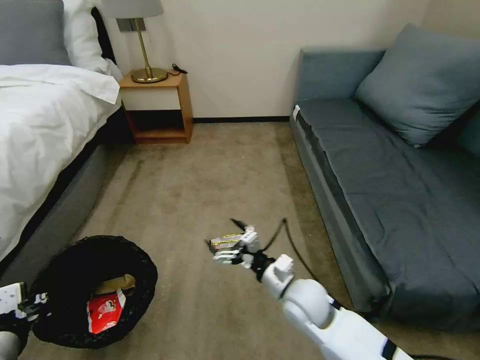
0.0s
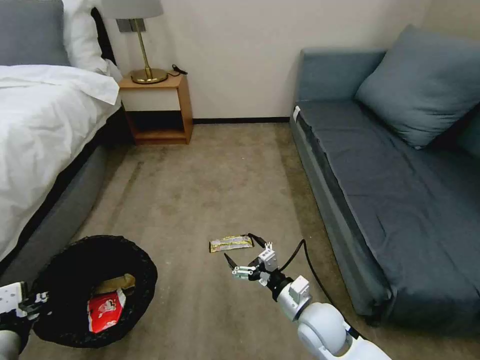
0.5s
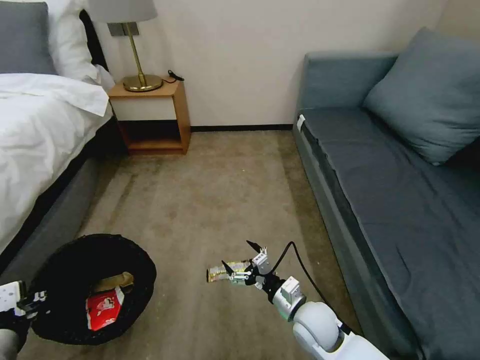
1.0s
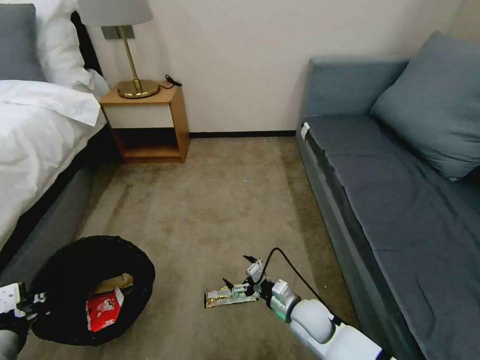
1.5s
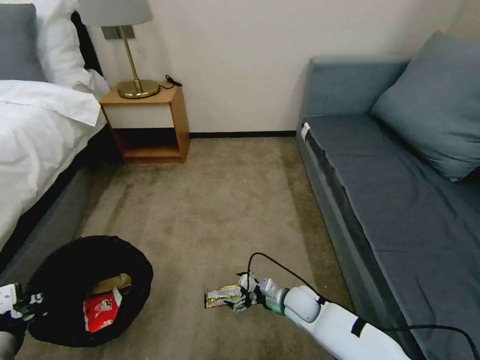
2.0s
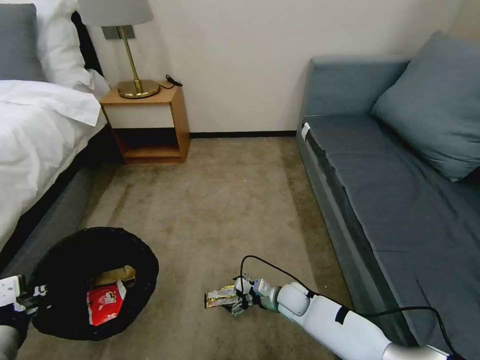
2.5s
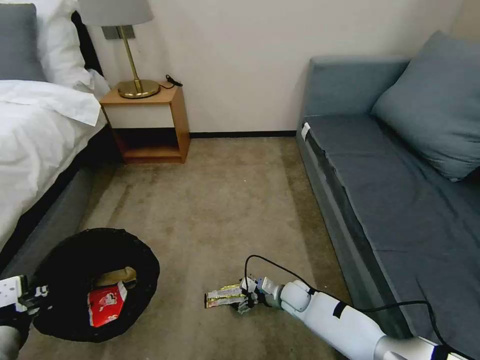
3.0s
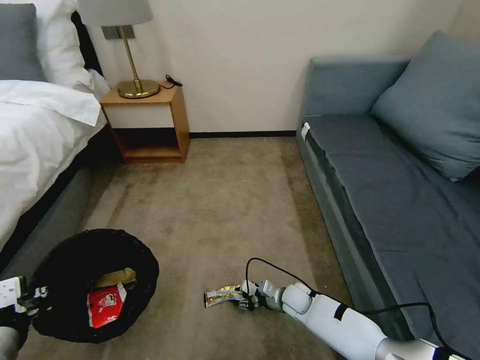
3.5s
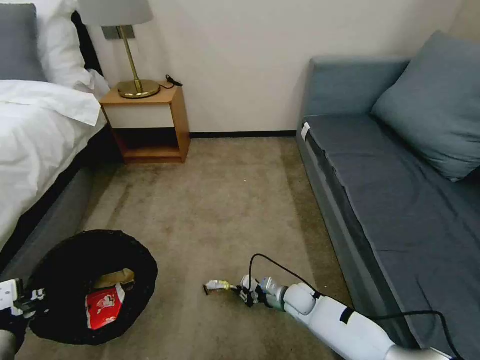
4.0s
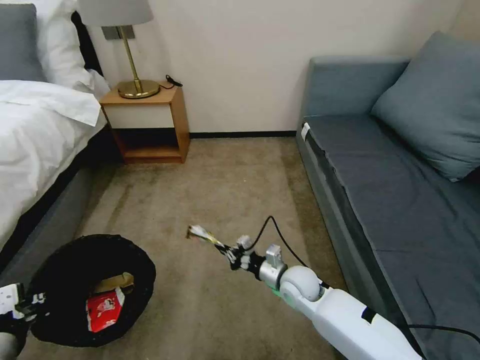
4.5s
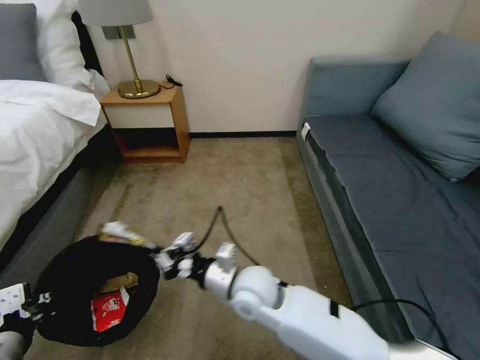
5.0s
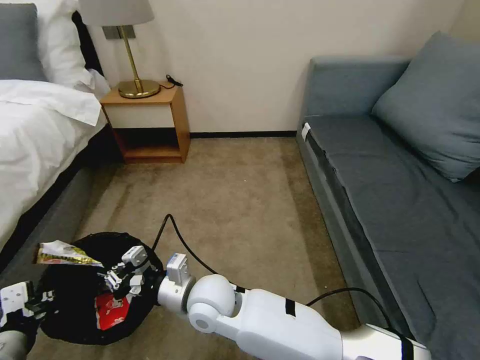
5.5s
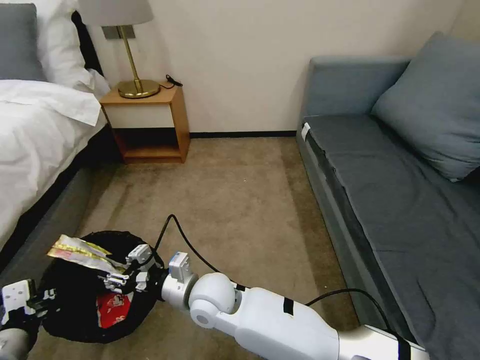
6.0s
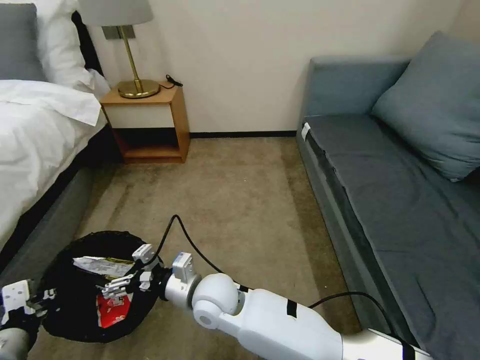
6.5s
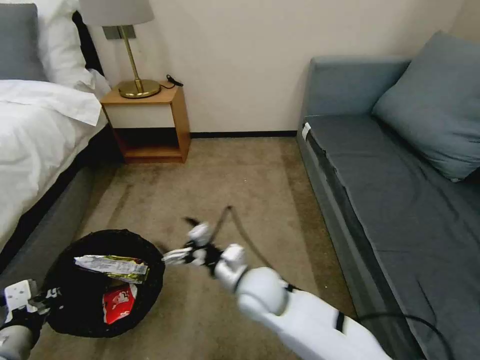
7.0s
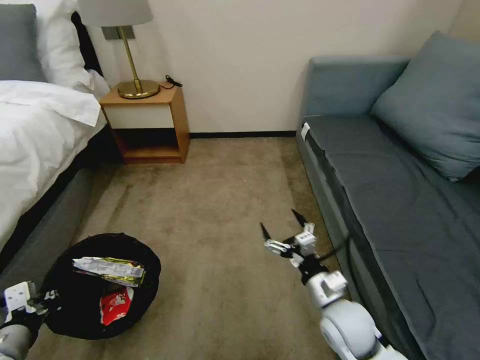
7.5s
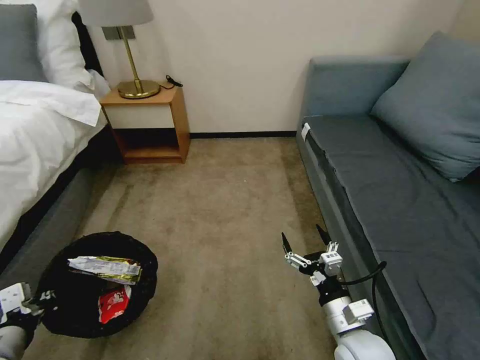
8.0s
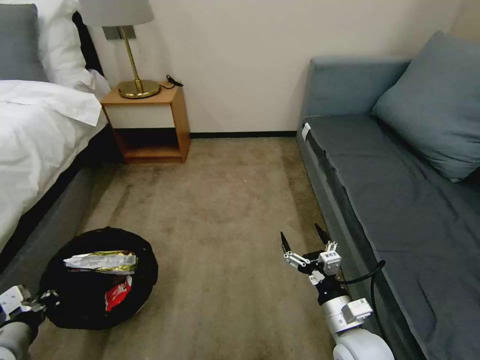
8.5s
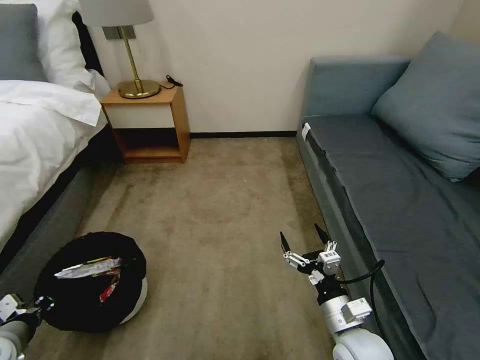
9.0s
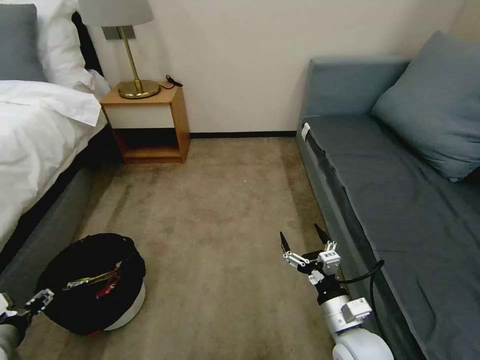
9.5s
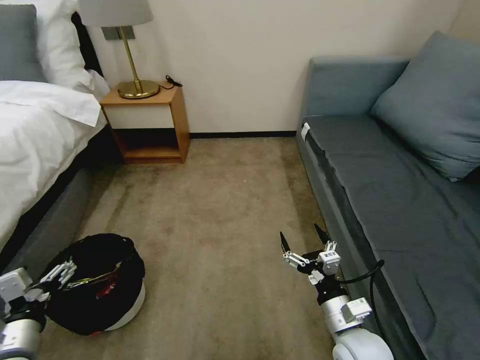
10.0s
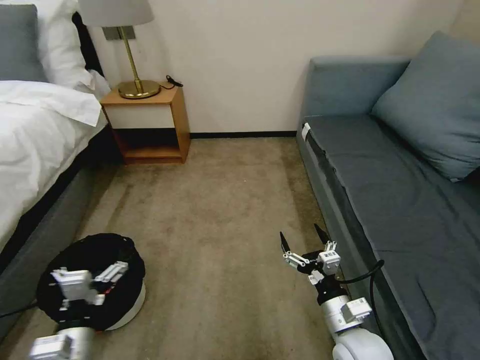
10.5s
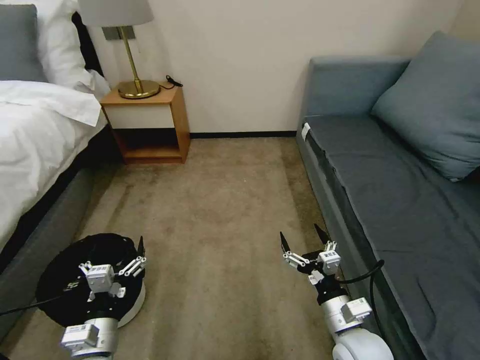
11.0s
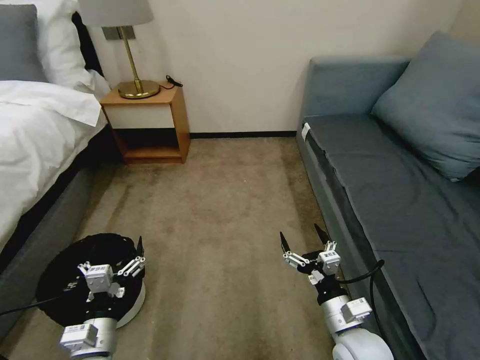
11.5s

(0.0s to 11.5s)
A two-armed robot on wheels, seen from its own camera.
Task of the whole recording: Pick up the trash bin, then pick up the garbage on the floor and place it into the trash bin.
0.0s - 2.0s: The right gripper heads downward, covering approximately 15 cm.
2.0s - 4.0s: The right gripper shifts by about 5 cm, and closes.
4.0s - 6.0s: The right gripper goes about 35 cm to the left and upward, and opens.
6.0s - 7.5s: The right gripper shifts about 30 cm to the right, and opens its fingers.
7.5s - 9.5s: The left gripper goes roughly 5 cm to the left, and opens up. Meanwhile the right gripper ends up approximately 5 cm from where it was.
9.5s - 11.5s: The left gripper travels to the right by about 20 cm, and opens.

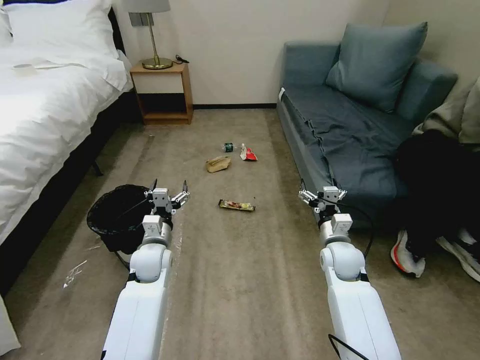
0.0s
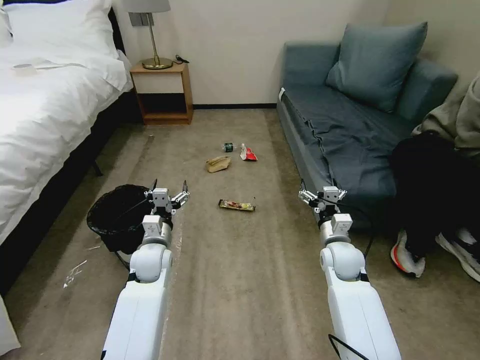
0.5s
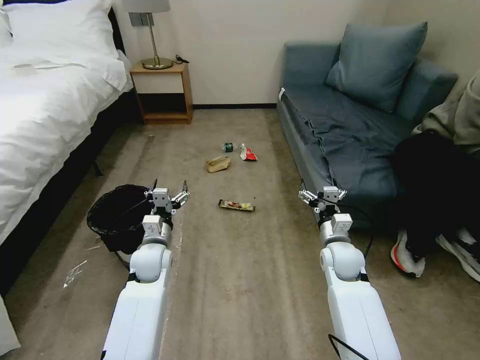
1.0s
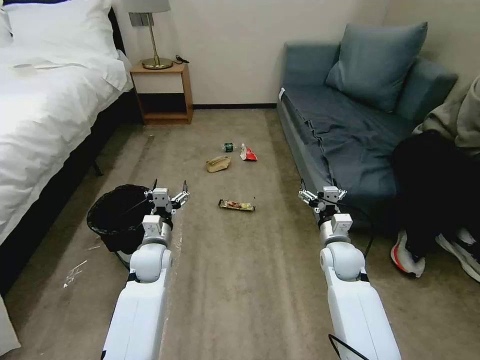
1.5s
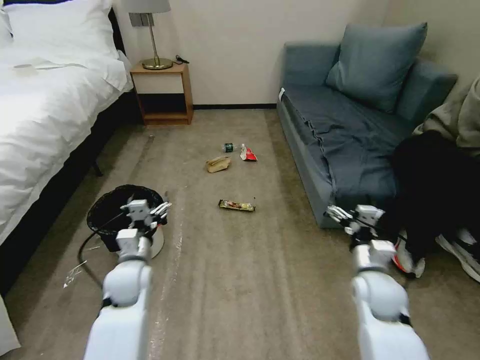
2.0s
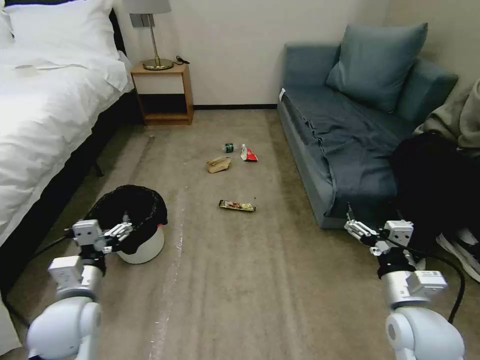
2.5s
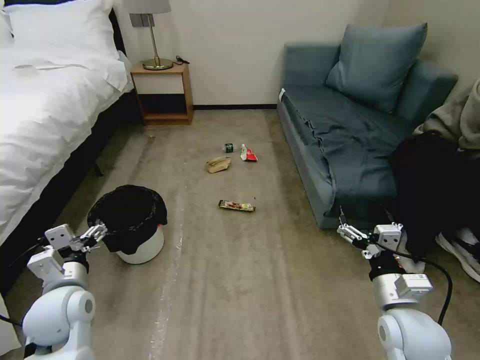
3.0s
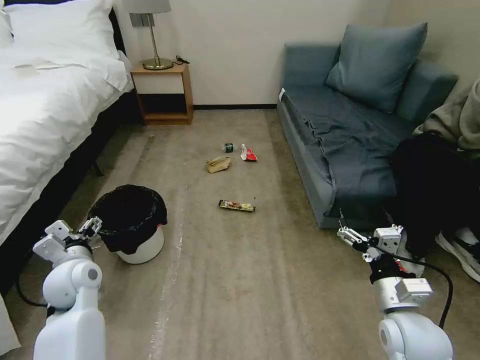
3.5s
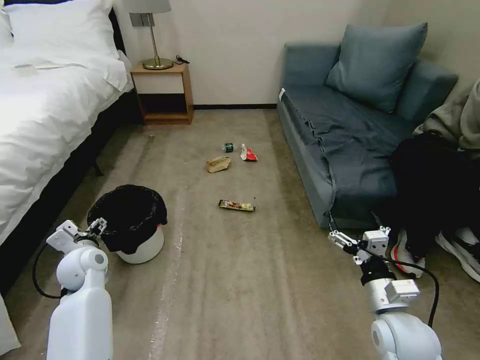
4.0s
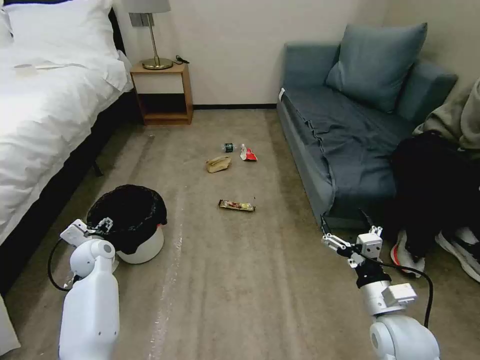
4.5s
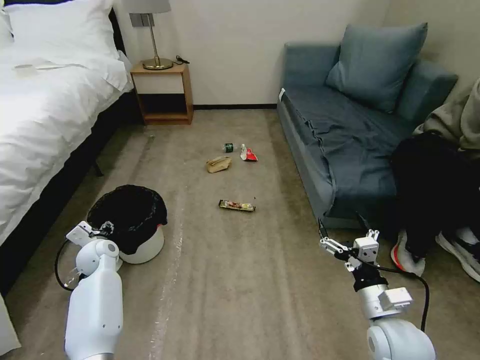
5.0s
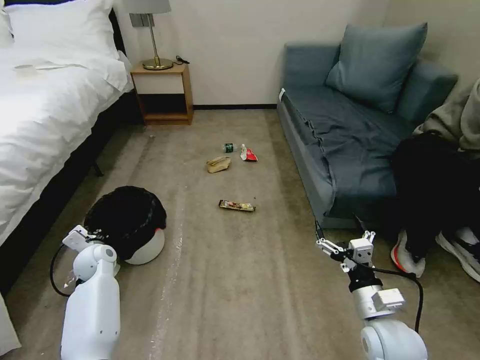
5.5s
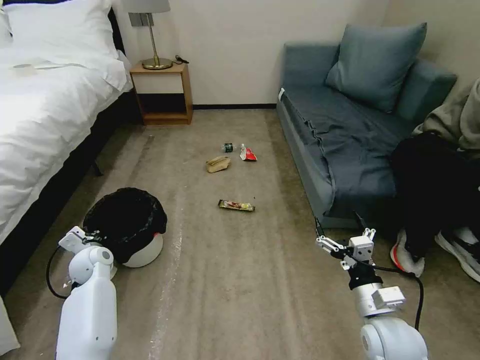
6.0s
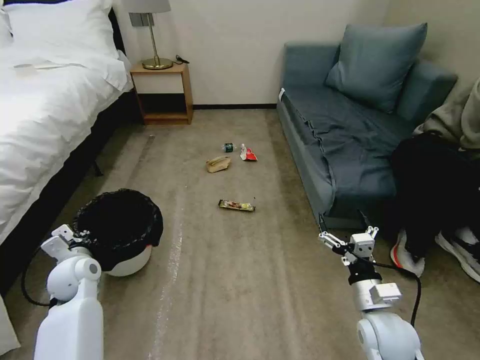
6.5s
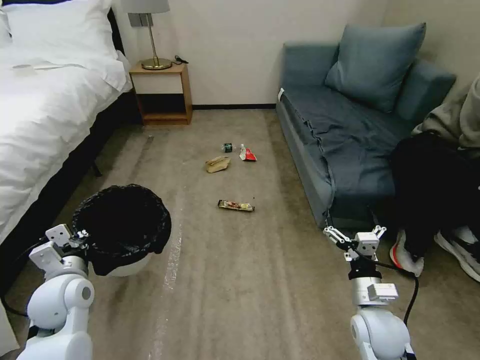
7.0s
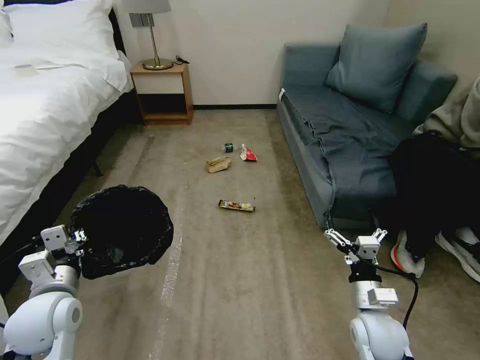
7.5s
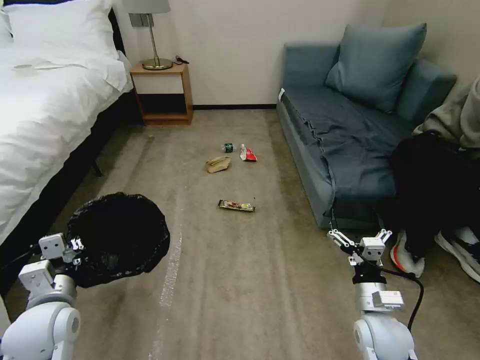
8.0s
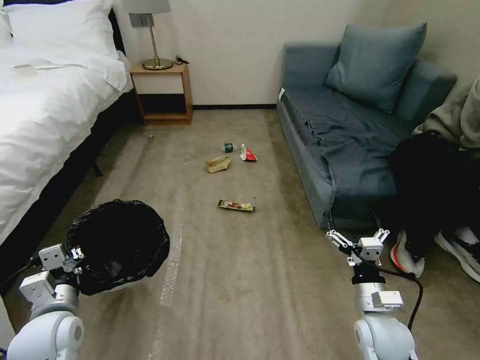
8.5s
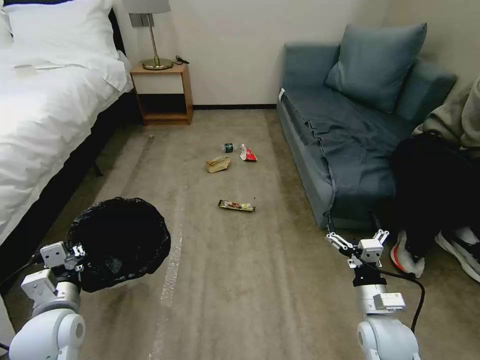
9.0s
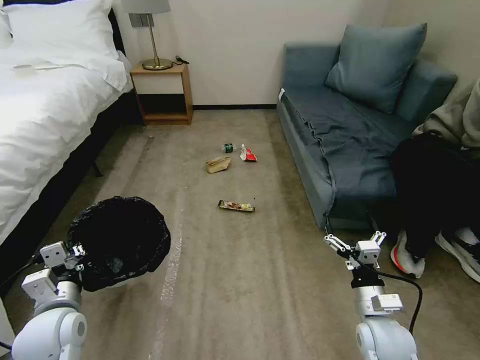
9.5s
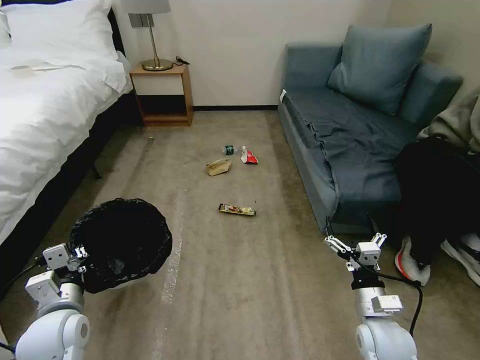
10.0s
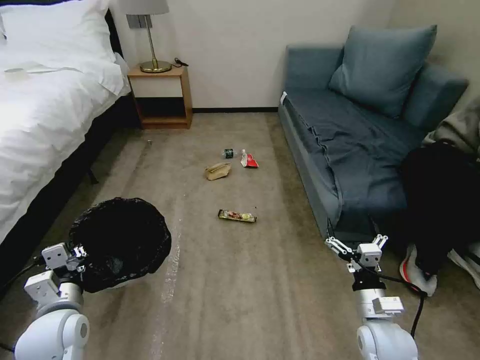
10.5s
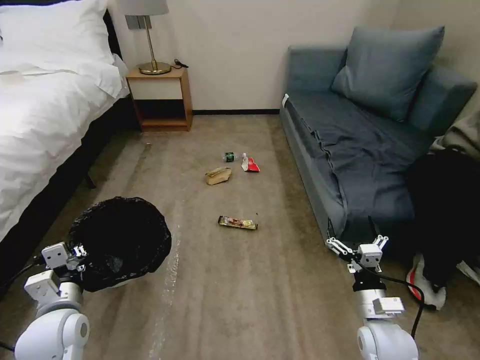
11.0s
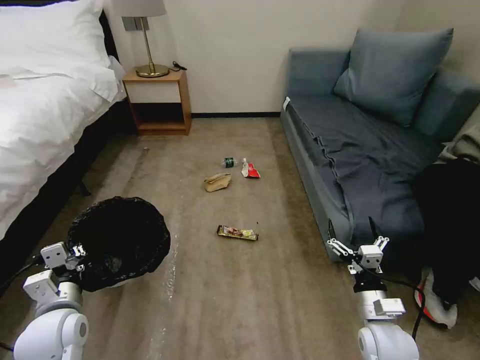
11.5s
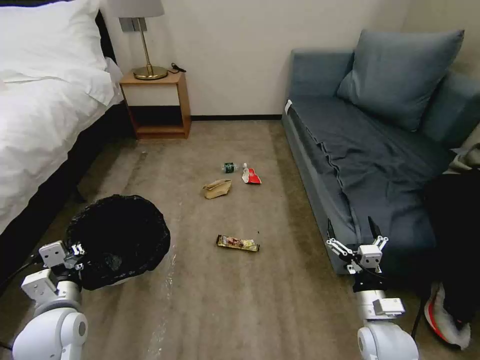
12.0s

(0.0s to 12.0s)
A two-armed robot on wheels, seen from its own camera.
Task of the whole recording: Pick up the trash bin, then pick up the garbage on the floor and place it into the trash bin.
2.0s - 4.0s: The right gripper goes some 10 cm backward. The left gripper goes approximately 10 cm to the left, and travels backward and back again, approximately 10 cm each way.
4.0s - 6.0s: The left gripper is displaced downward by about 5 cm, and closes up.
6.0s - 8.0s: The left gripper is displaced backward and upward by some 20 cm.
8.0s - 10.0s: The grippers make only small movements.

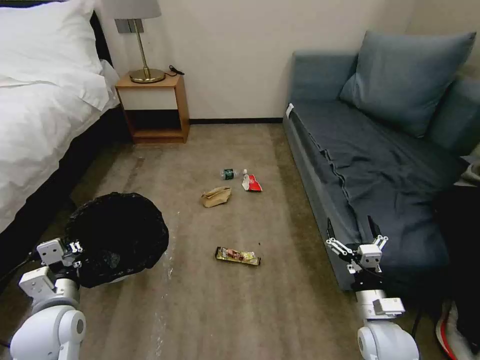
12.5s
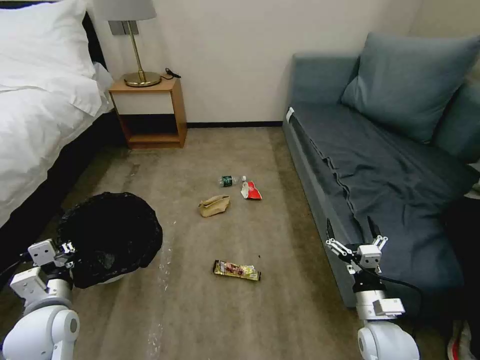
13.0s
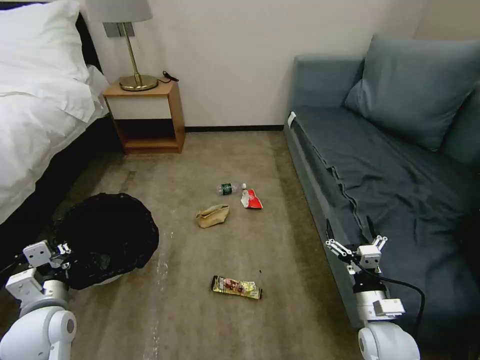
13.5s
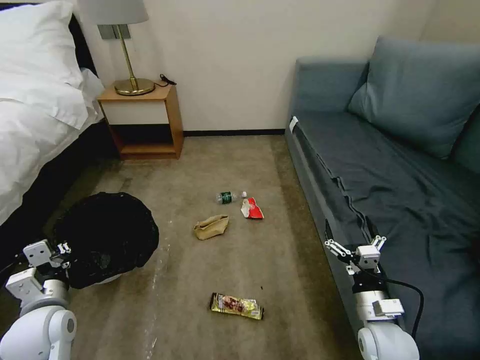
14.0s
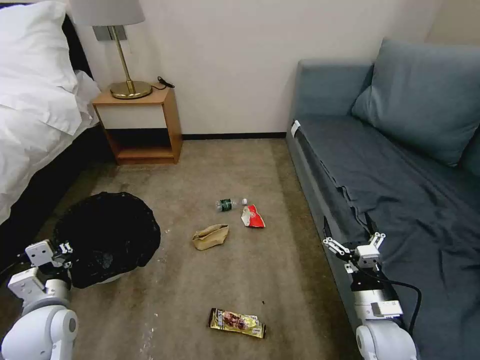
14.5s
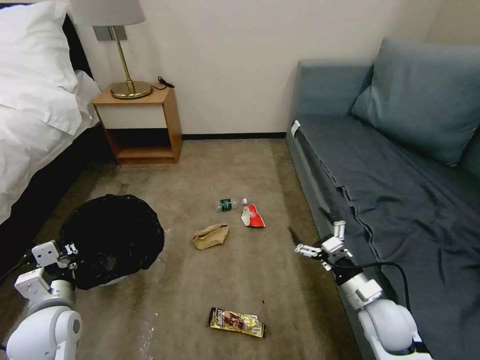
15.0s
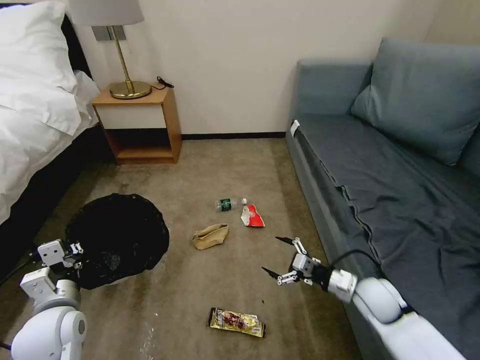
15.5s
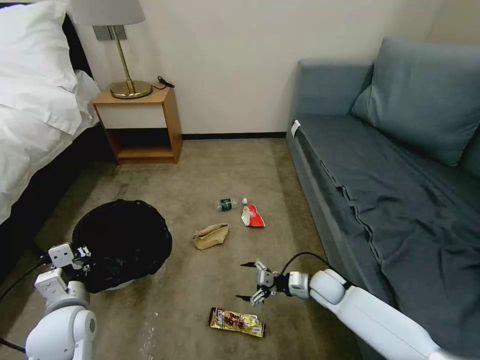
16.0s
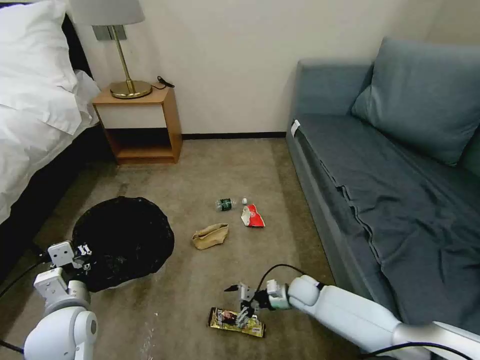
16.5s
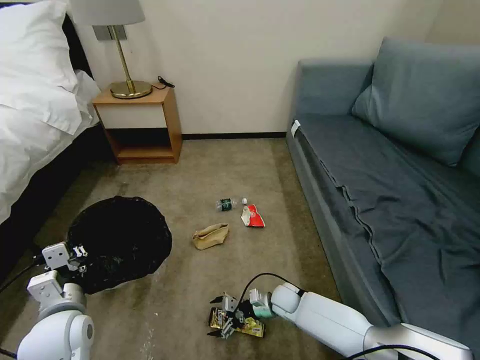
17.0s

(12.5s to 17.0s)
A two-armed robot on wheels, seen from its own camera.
Task of the whole recording: Pick up the trash bin, then pick up the garbage on the floor and place it into the trash bin.
14.5s - 17.0s: The right gripper travels downward, to the left and forward by some 25 cm.
